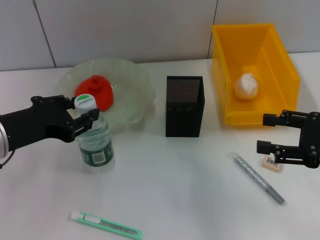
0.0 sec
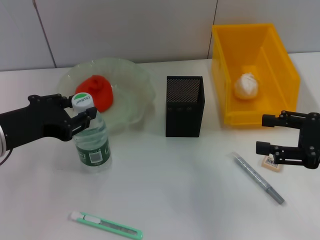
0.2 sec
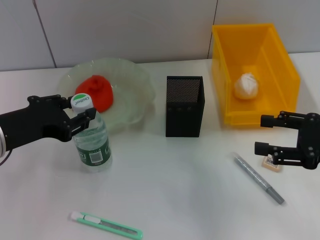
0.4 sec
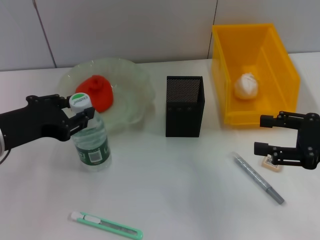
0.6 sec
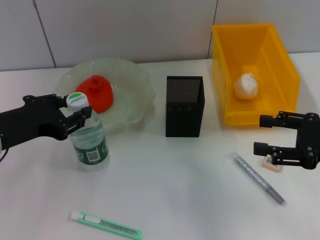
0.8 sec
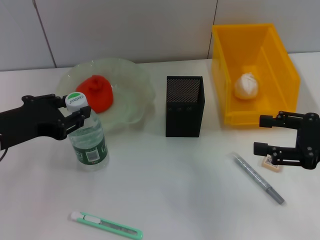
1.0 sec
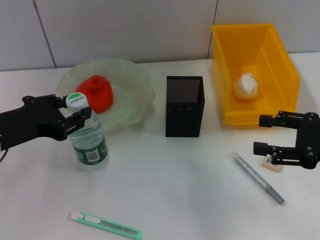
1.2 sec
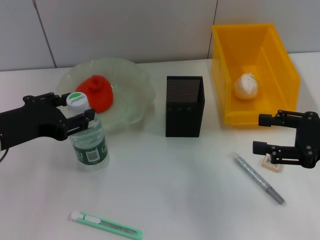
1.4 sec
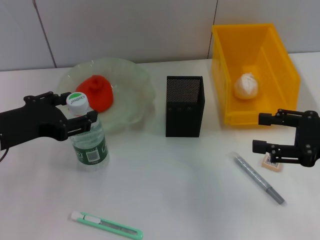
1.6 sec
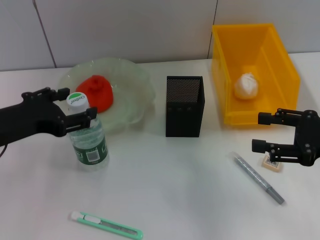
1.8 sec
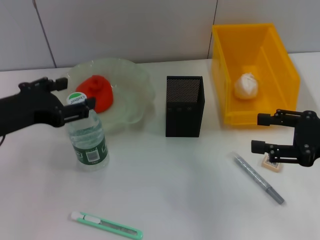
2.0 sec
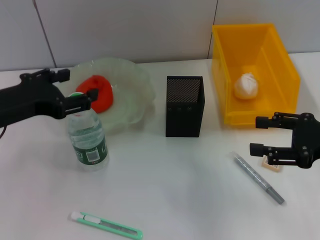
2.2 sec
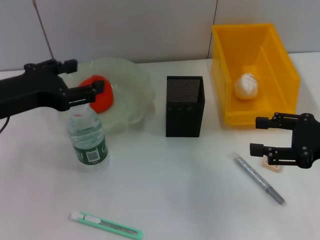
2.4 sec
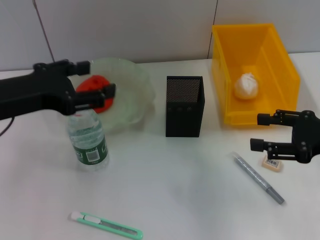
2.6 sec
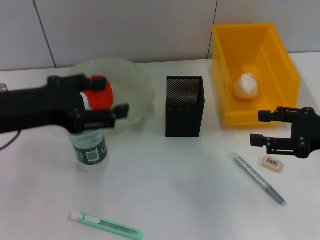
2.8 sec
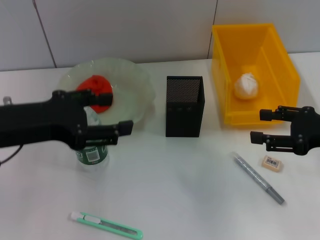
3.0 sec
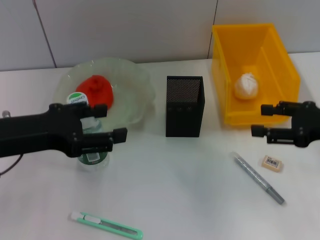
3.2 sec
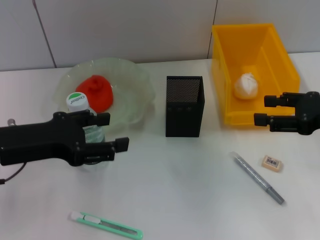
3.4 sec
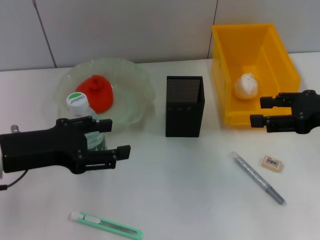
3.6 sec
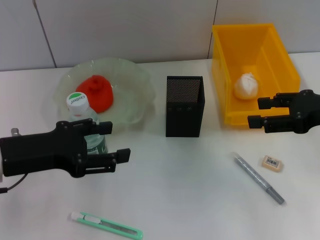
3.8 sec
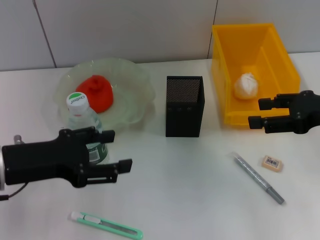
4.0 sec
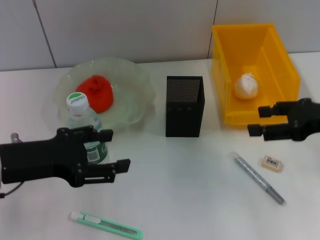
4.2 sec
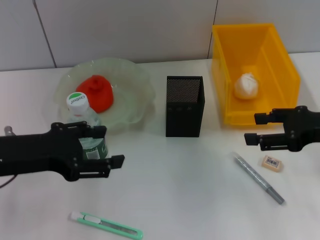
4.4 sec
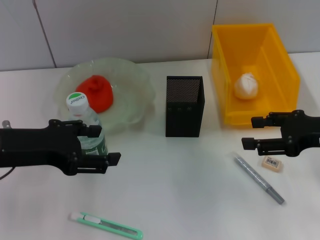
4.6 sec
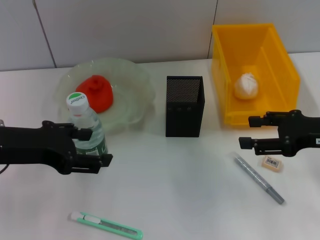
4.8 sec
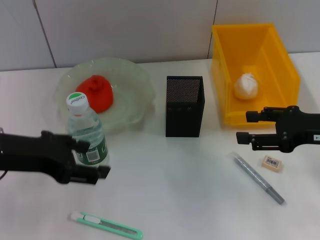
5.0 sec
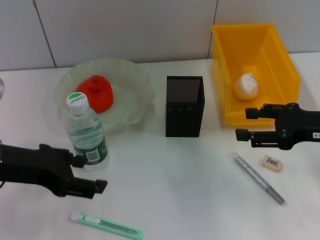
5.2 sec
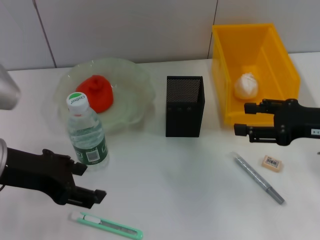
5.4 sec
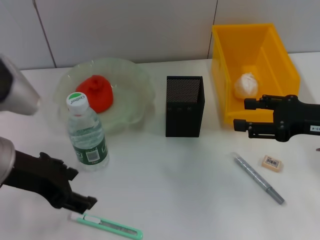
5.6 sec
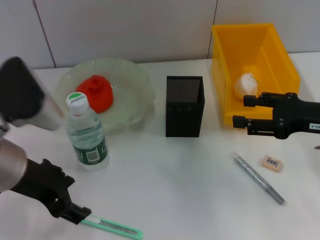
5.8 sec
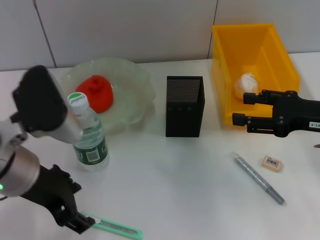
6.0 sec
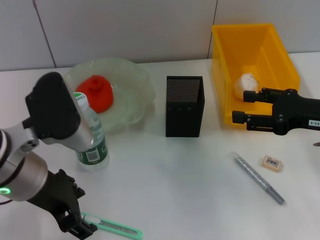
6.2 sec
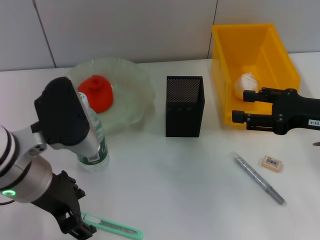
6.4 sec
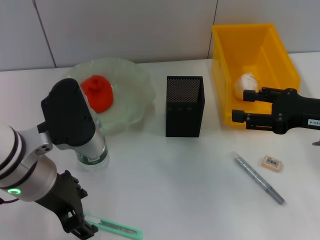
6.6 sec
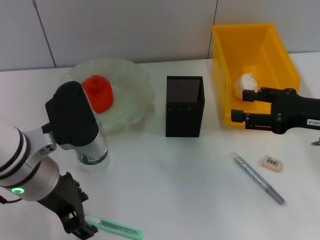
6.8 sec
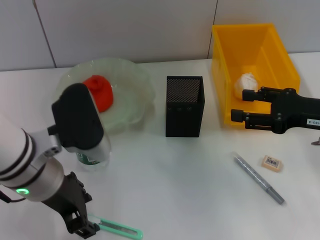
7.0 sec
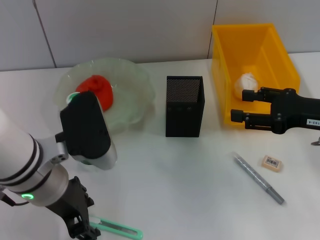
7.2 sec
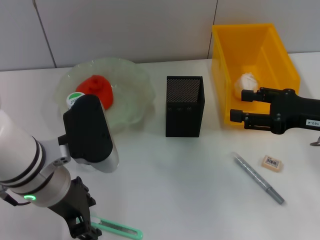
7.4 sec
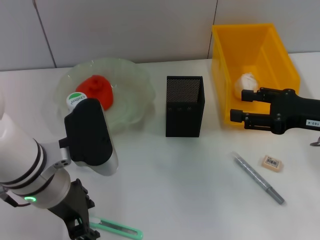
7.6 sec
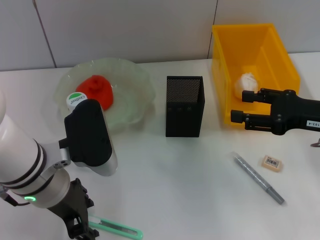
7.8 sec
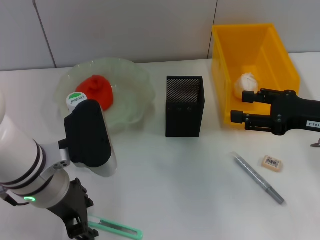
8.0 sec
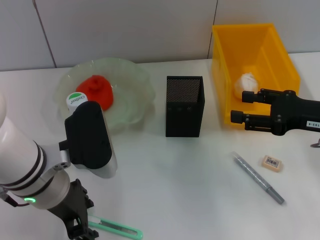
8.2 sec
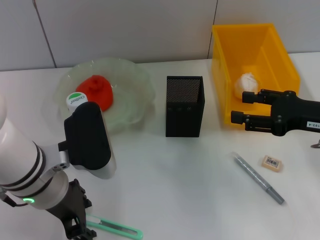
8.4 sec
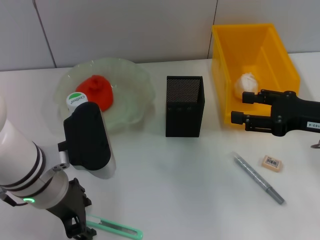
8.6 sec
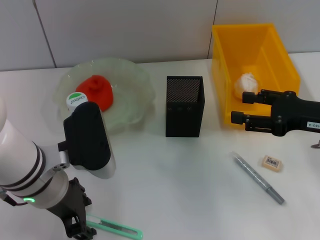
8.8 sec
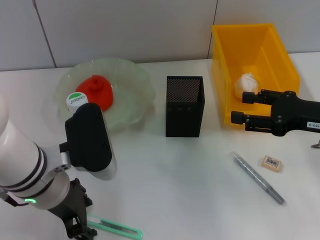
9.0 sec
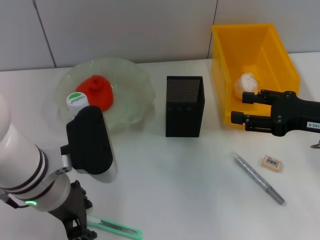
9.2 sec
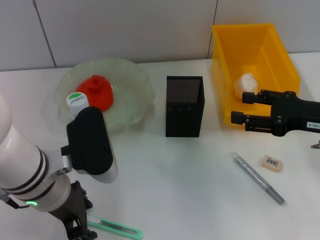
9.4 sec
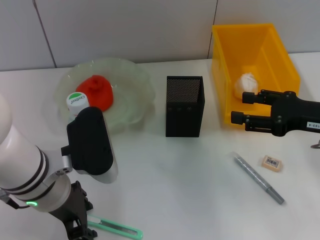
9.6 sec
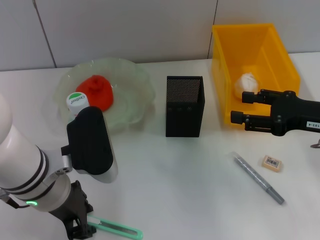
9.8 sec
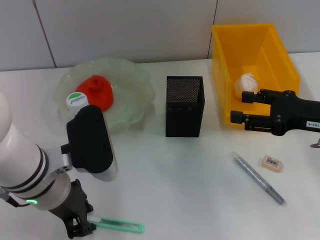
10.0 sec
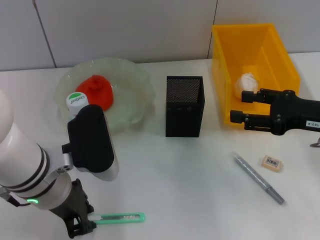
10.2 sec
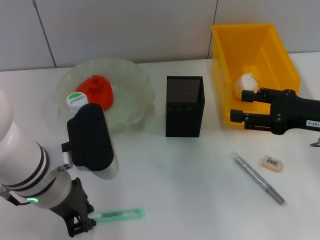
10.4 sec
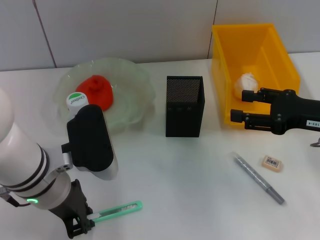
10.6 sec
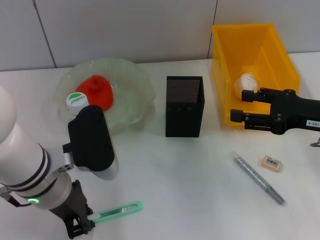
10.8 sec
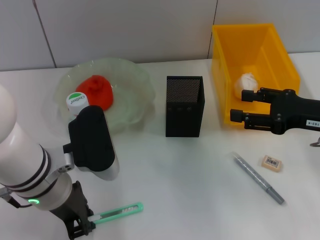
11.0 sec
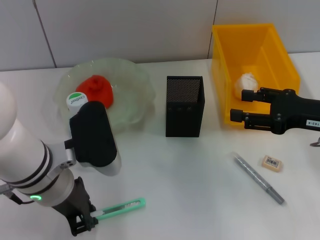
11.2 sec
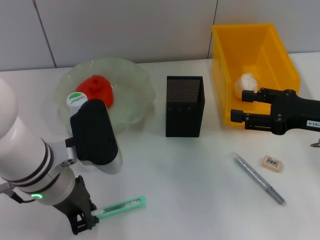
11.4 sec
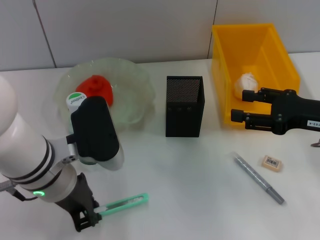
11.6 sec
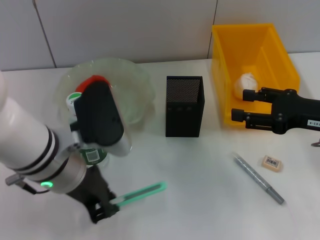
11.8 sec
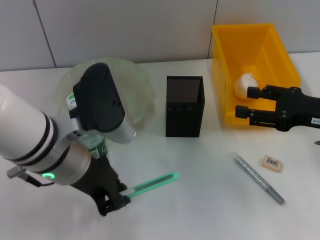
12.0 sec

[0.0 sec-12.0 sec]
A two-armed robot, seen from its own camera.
Step, 2.0 sec to 10.4 sec: Grab the blue utility knife with the left hand.
0.0 sec to 1.6 sec: The left gripper opens its fingers.
3.0 sec to 4.4 sec: The grippers move only a little.
4.4 sec to 6.0 sec: The left gripper goes about 5 cm to the right.
6.0 sec to 7.6 sec: The grippers stay close to where they were, moving slightly.
7.6 sec to 9.0 sec: Both grippers stay about where they are.
9.0 sec to 10.4 sec: The left gripper closes up.
10.4 sec to 12.0 sec: The left gripper ends up approximately 5 cm from where it was.

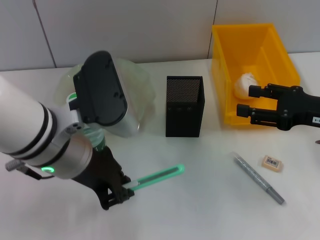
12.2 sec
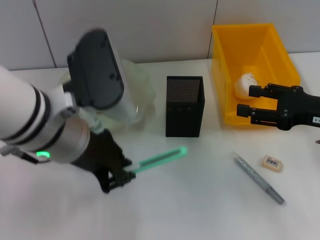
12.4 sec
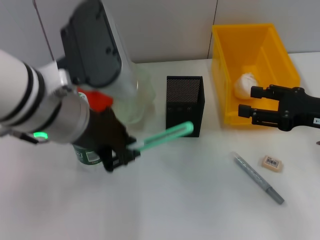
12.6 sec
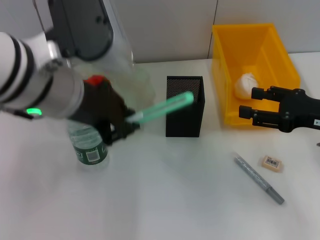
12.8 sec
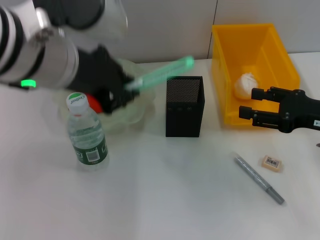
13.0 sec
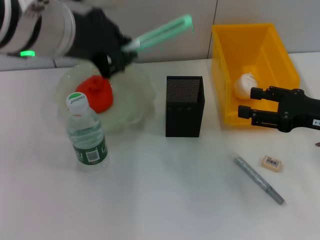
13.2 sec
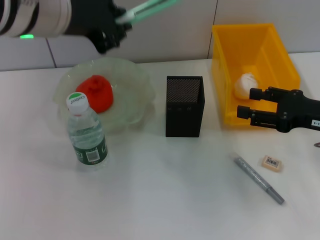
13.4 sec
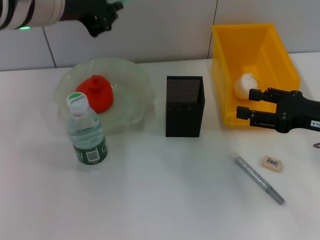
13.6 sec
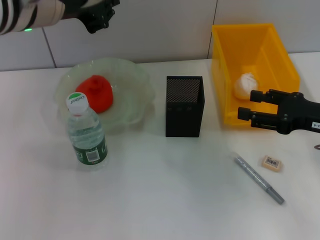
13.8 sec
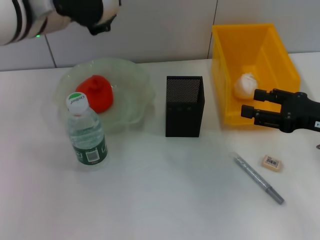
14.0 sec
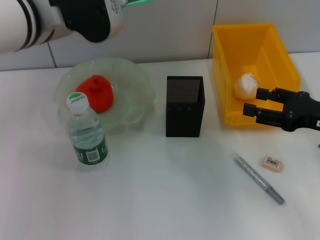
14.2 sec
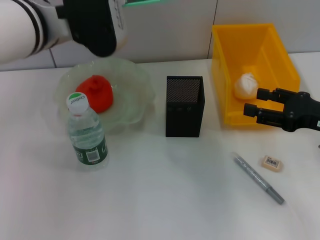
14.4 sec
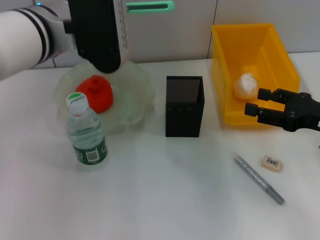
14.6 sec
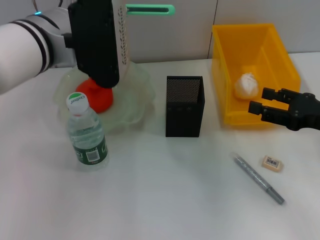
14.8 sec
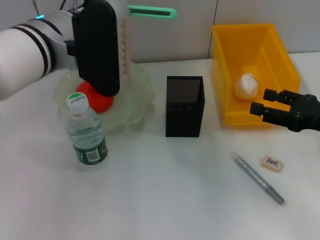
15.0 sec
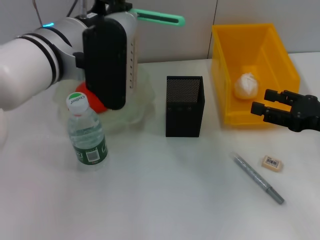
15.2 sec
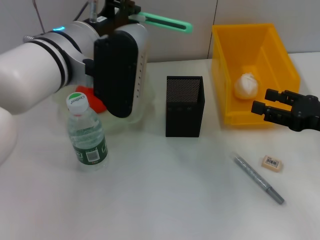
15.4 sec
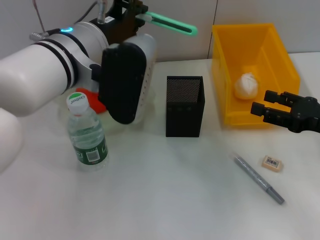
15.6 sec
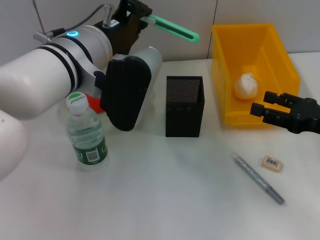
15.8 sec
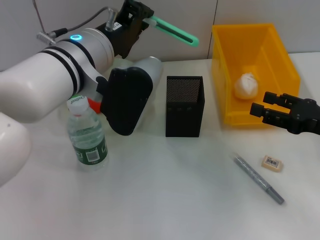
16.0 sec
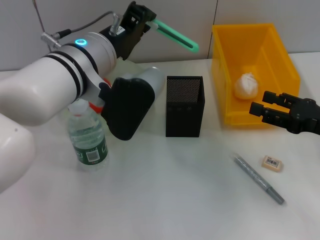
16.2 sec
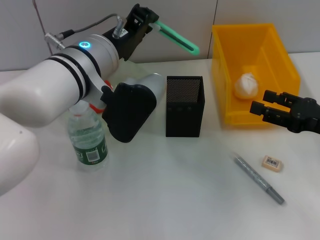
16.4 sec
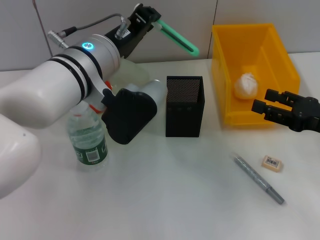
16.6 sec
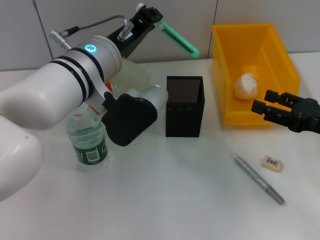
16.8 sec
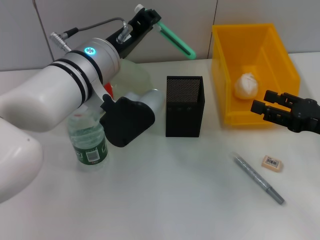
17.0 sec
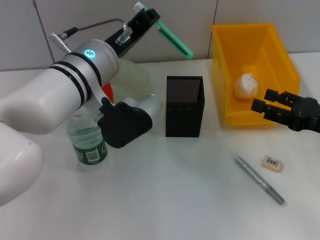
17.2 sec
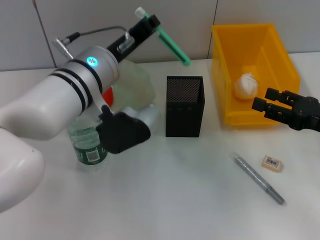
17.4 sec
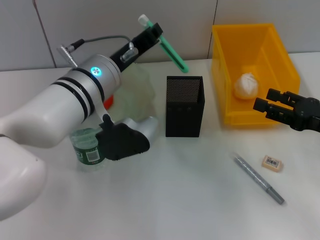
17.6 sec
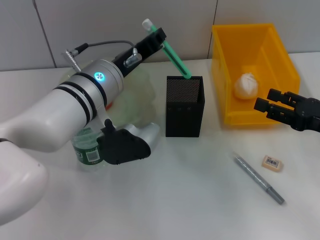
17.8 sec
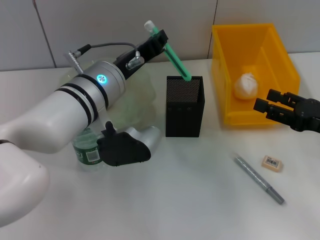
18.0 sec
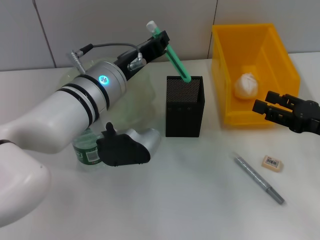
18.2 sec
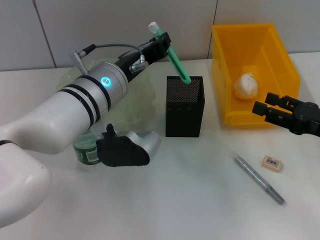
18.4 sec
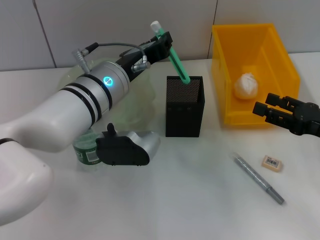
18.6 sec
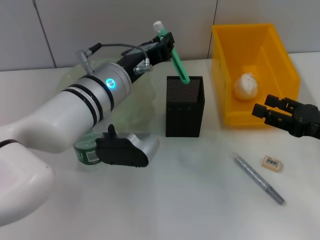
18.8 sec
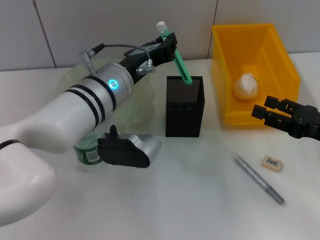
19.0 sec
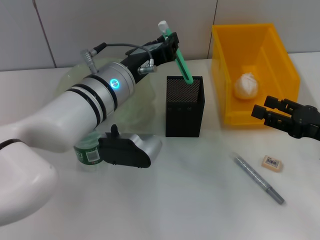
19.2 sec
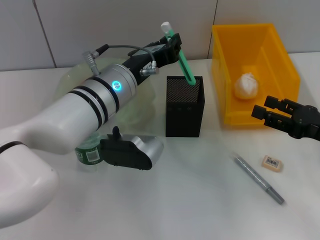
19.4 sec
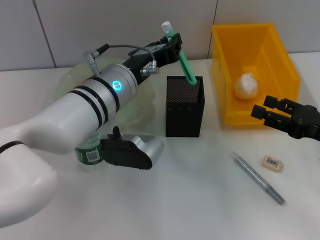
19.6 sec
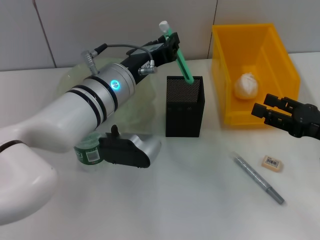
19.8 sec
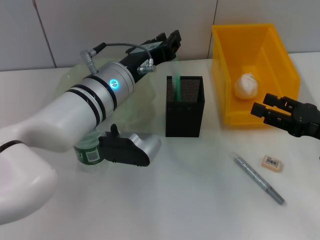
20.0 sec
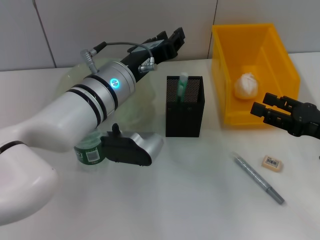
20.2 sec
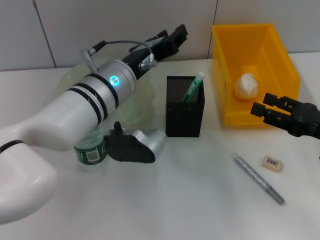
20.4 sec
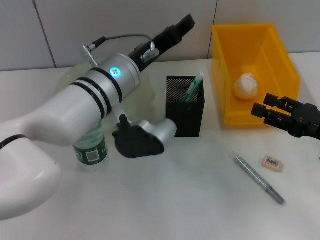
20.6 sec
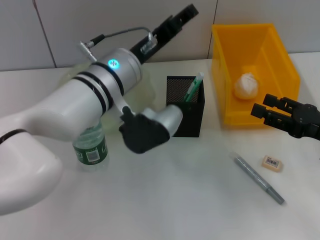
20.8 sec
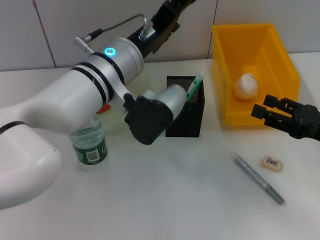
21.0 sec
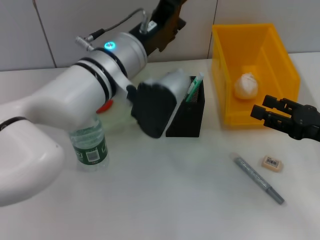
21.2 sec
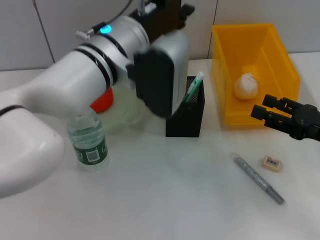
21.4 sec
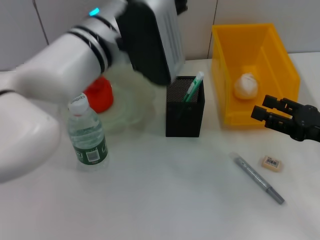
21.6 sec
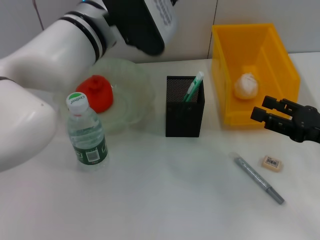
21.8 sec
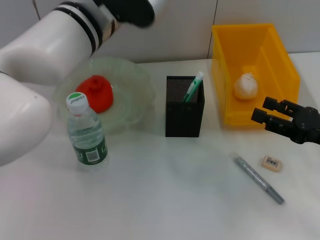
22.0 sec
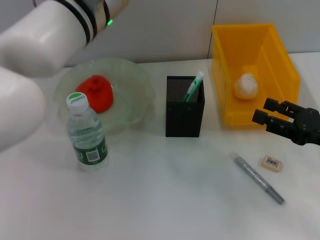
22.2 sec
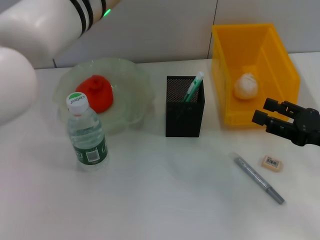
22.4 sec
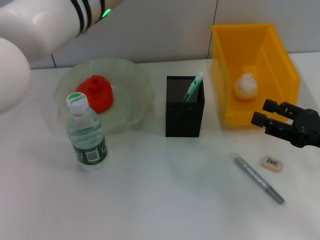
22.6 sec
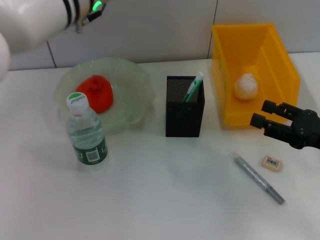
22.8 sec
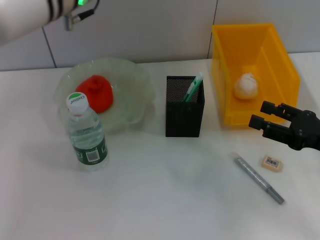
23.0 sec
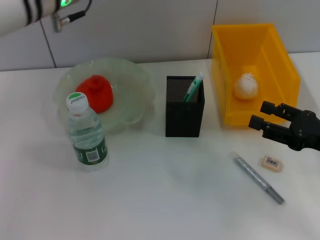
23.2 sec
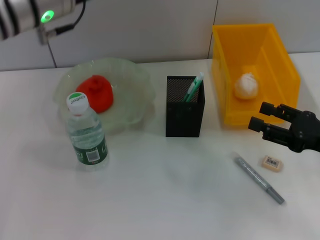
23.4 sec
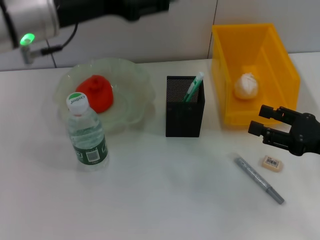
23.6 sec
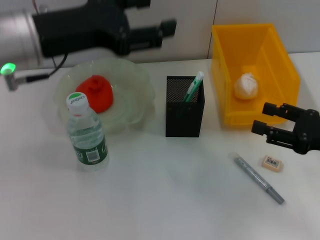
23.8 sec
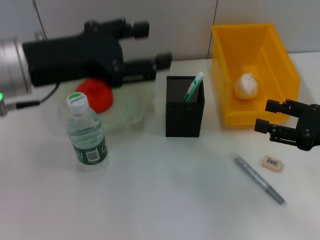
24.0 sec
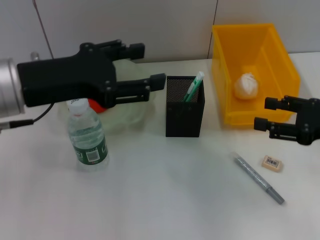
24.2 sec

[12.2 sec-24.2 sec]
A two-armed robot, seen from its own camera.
Step, 12.2 sec to 20.4 sec: Place the blue utility knife into the pen holder with the left hand.
12.2 sec to 13.8 sec: The left gripper is displaced upward and forward by about 10 cm.
13.8 sec to 15.2 sec: The left gripper moves downward, approximately 5 cm.
18.2 sec to 19.8 sec: The grippers make only small movements.
19.8 sec to 21.2 sec: The left gripper opens its fingers.
21.2 sec to 22.6 sec: The left gripper heads upward, covering some 10 cm.
22.6 sec to 24.2 sec: The left gripper is displaced to the left and backward by approximately 15 cm.
